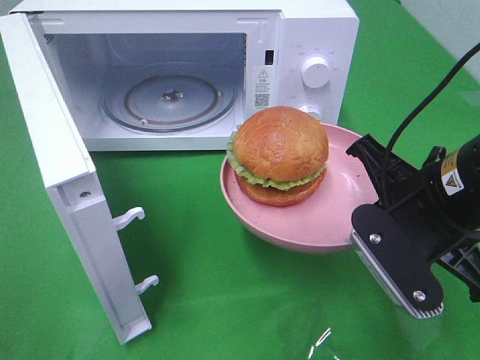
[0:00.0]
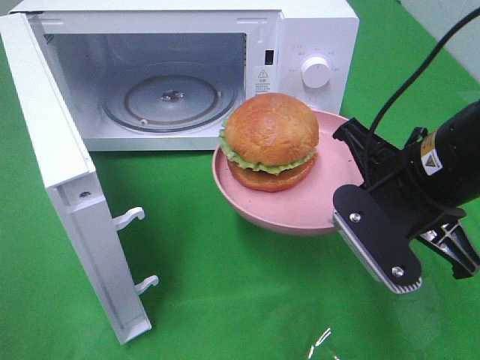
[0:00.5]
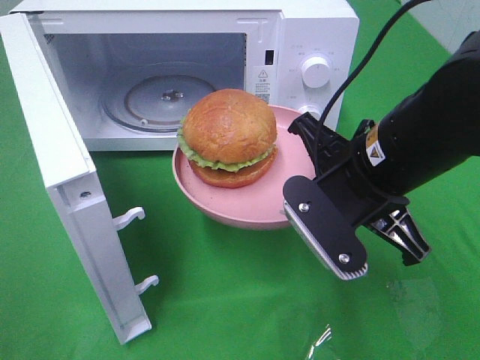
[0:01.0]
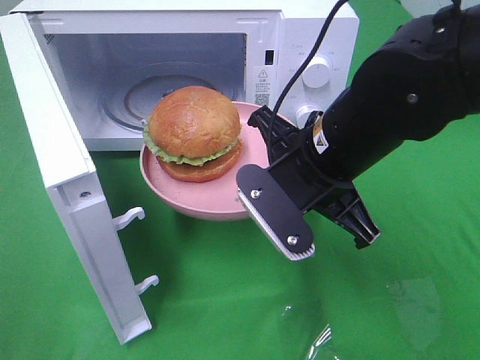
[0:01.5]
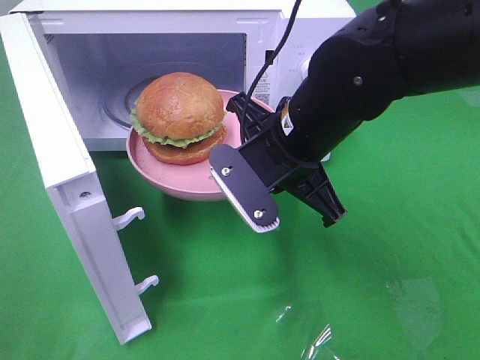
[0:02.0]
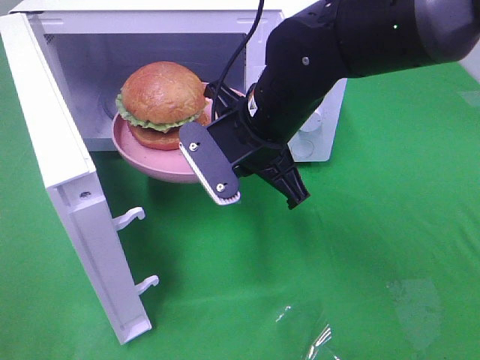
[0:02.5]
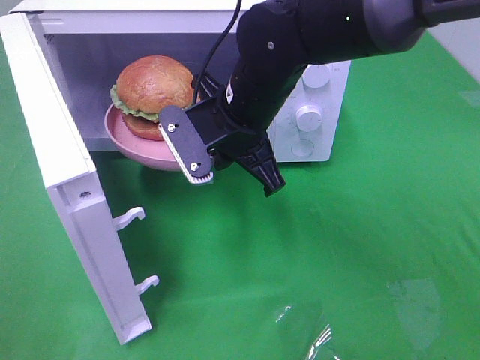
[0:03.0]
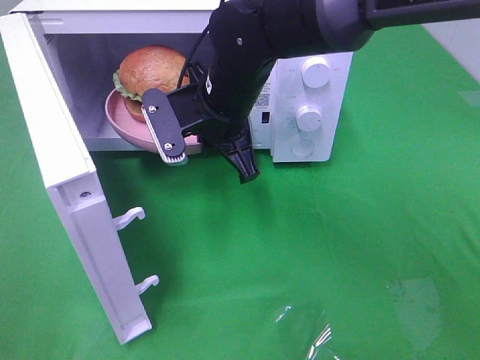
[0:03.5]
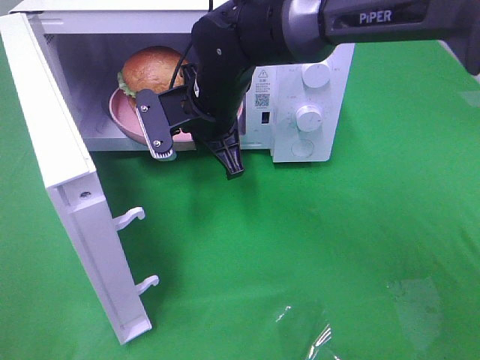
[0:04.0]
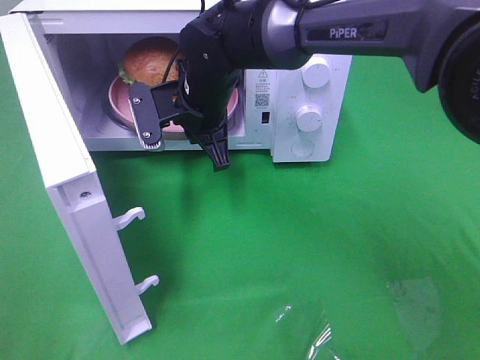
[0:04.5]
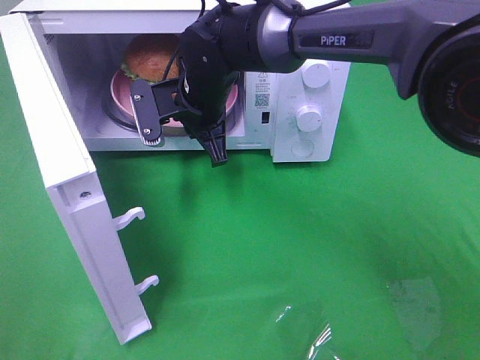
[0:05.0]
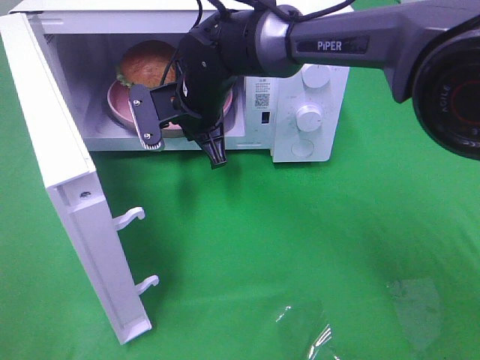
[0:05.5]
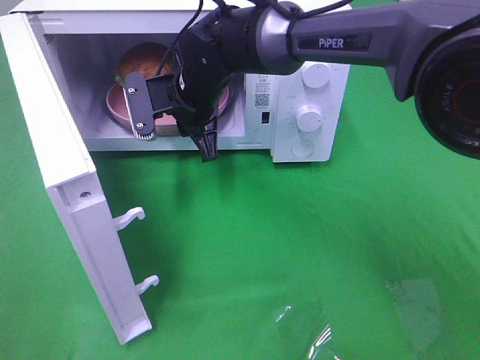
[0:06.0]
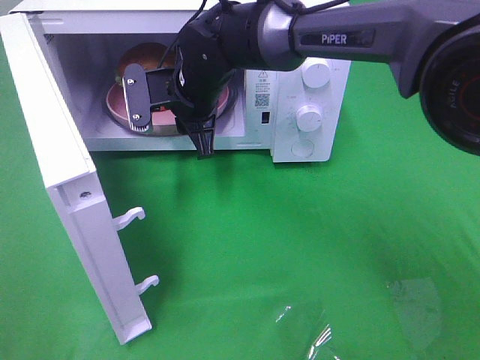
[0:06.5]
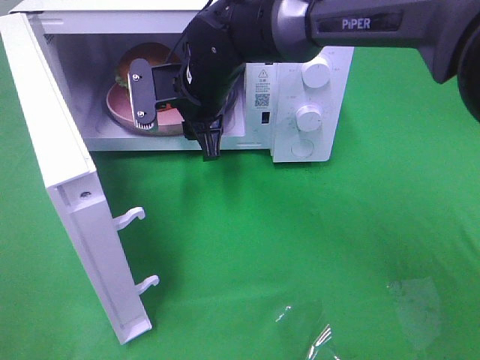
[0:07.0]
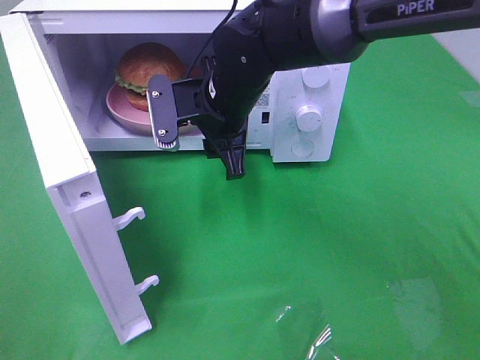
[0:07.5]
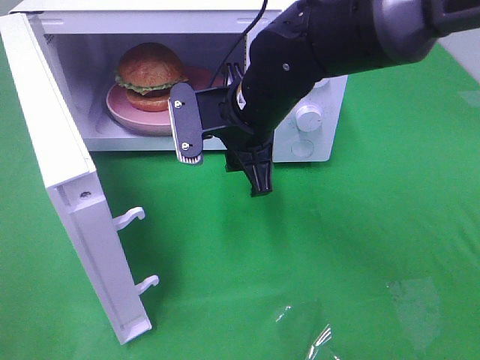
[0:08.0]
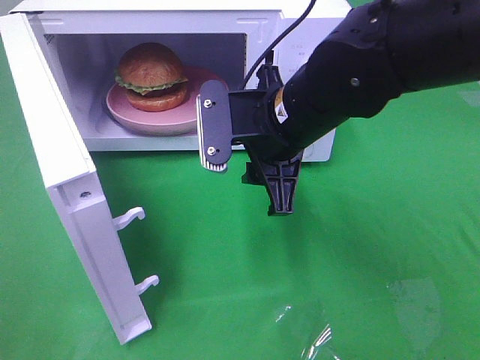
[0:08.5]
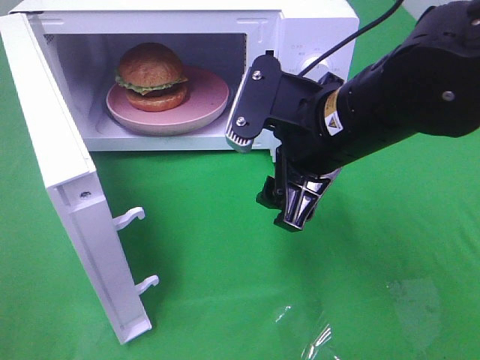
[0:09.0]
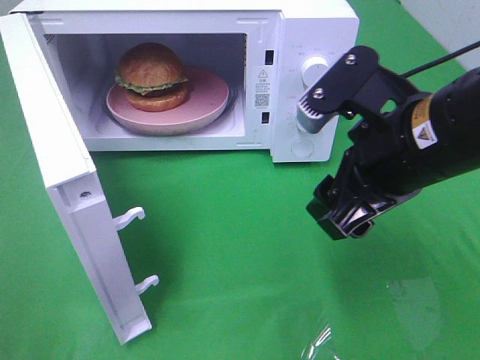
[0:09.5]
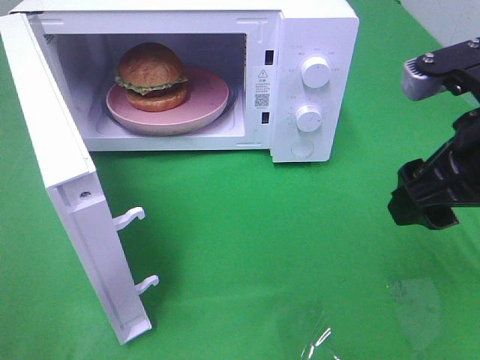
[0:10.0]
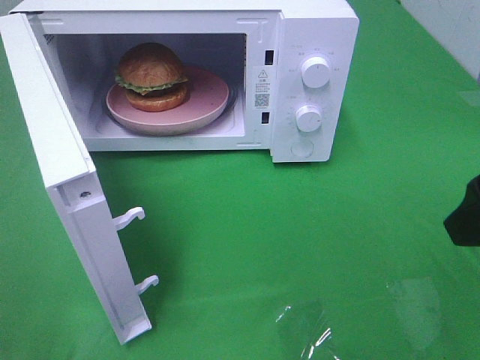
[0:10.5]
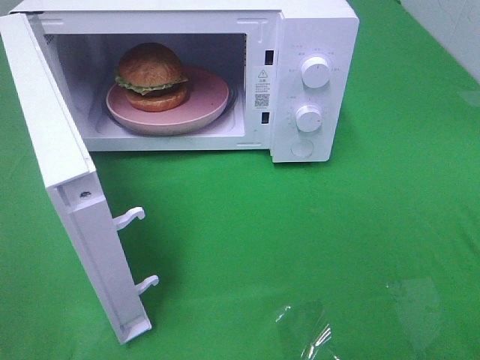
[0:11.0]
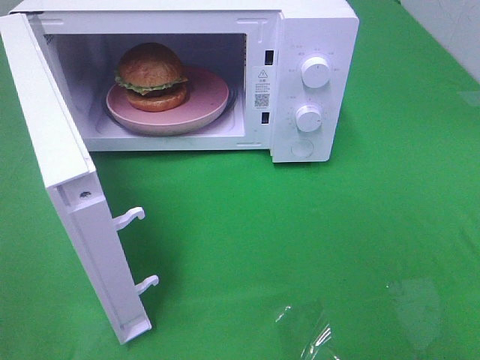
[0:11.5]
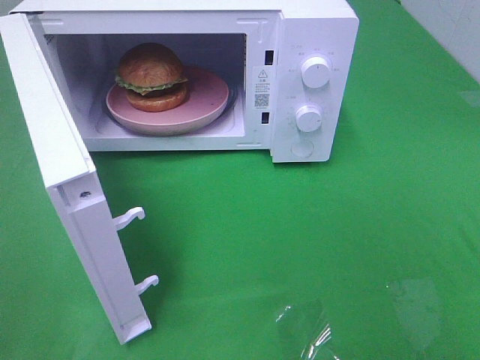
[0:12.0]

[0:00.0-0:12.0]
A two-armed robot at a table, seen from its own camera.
Task of the whole recording: Heat the burger.
Step, 0.0 to 7.0 s: Right hand: place the plate in the microwave.
0.0 to 2.0 s: The right gripper heads to the left and forward, covering about 15 cm.
2.0 to 4.0 s: The right gripper goes approximately 15 cm forward and to the left.
4.0 to 6.0 s: The right gripper opens.
6.0 to 8.0 s: The right gripper moves backward and to the right, approximately 10 cm.
8.0 to 10.0 s: The right gripper heads to the right, backward and upward, covering about 25 cm.
10.0 to 12.0 s: The right gripper shifts roughly 20 cm backward and to the right.

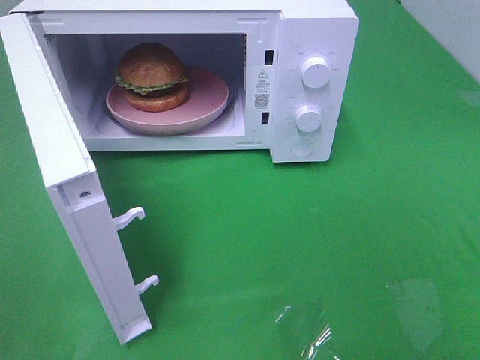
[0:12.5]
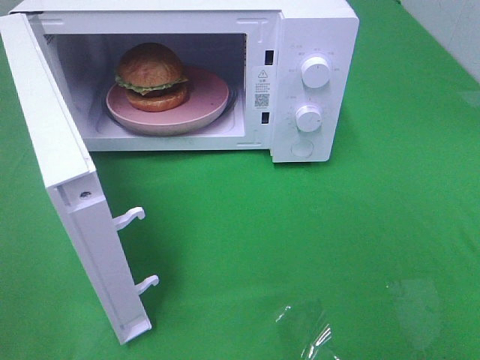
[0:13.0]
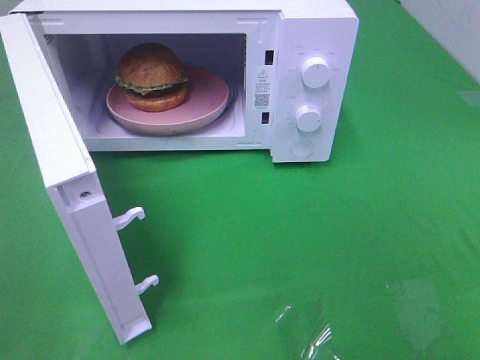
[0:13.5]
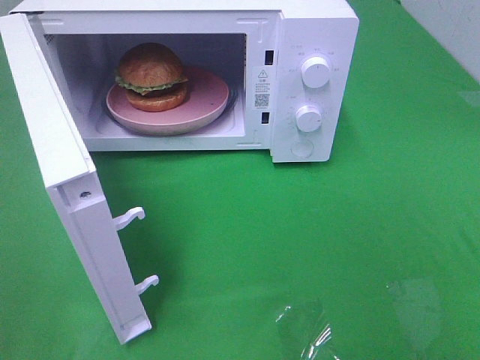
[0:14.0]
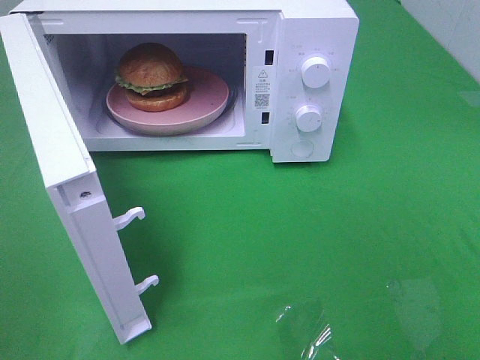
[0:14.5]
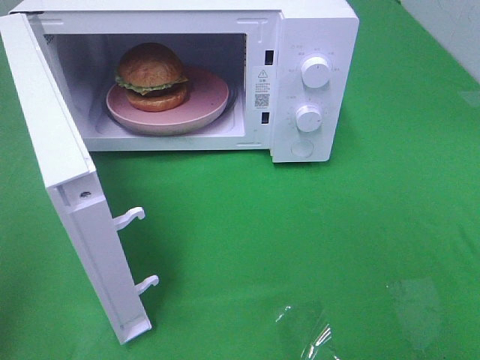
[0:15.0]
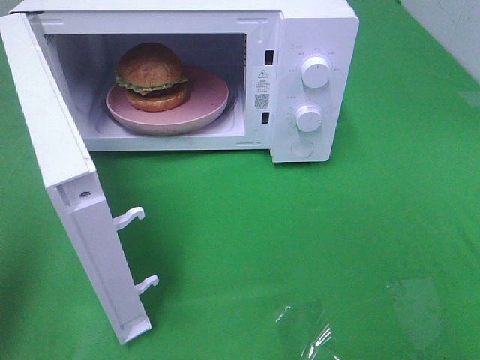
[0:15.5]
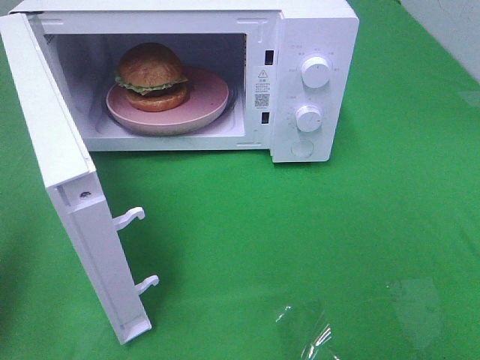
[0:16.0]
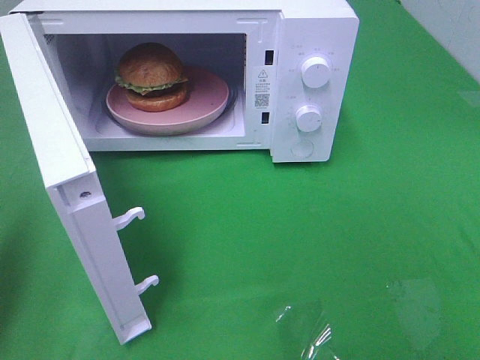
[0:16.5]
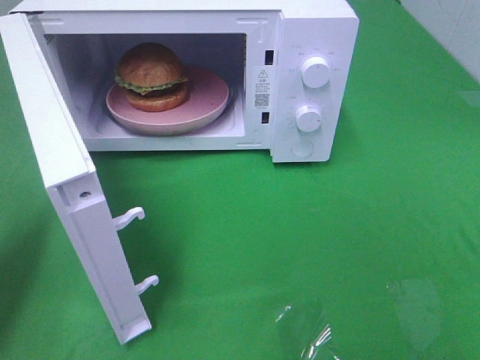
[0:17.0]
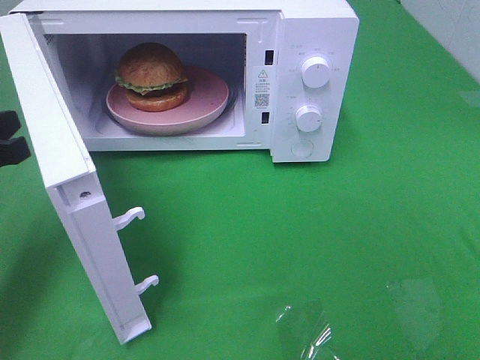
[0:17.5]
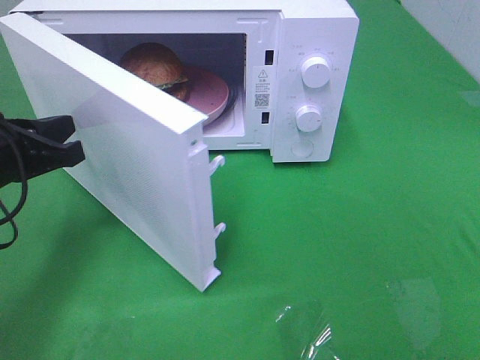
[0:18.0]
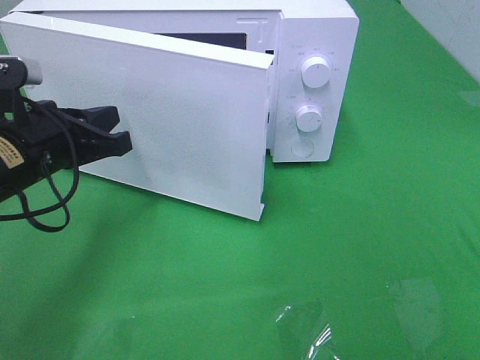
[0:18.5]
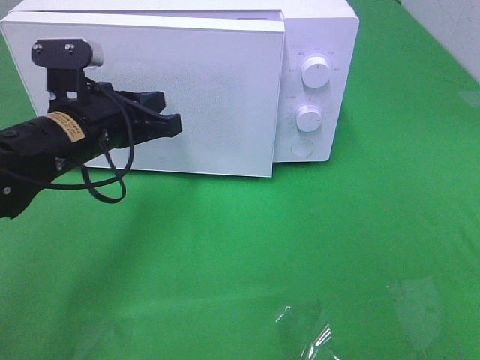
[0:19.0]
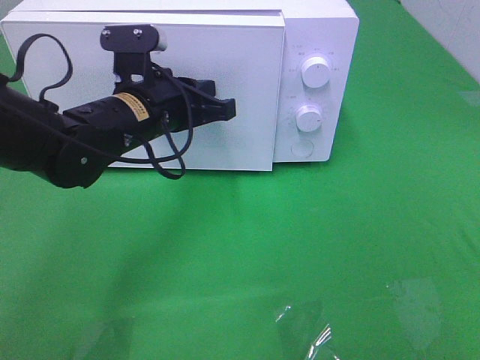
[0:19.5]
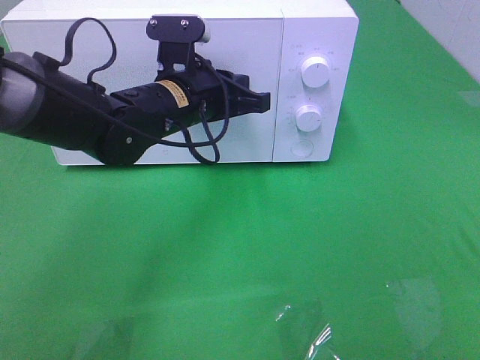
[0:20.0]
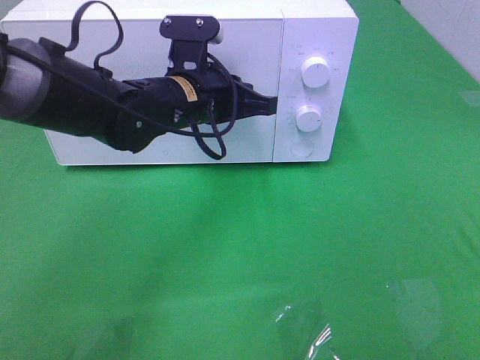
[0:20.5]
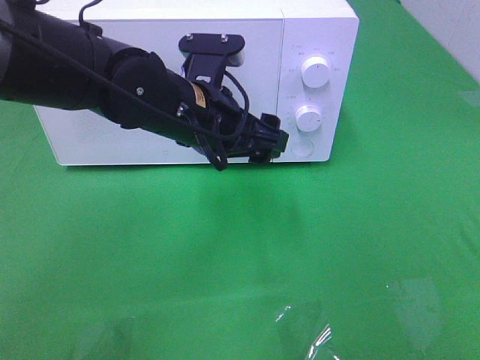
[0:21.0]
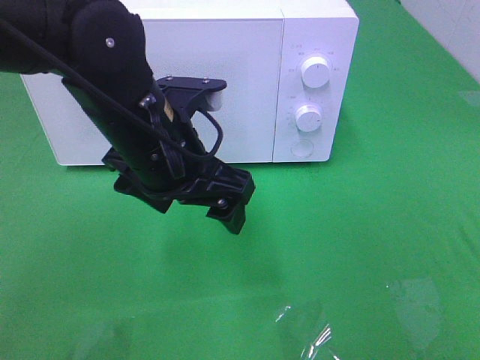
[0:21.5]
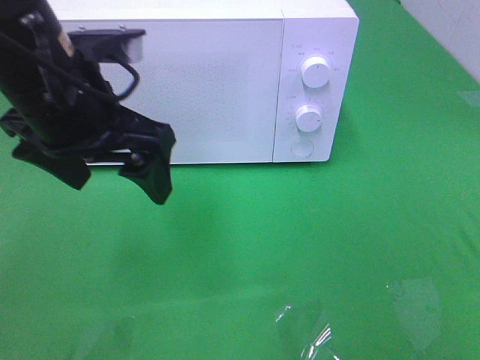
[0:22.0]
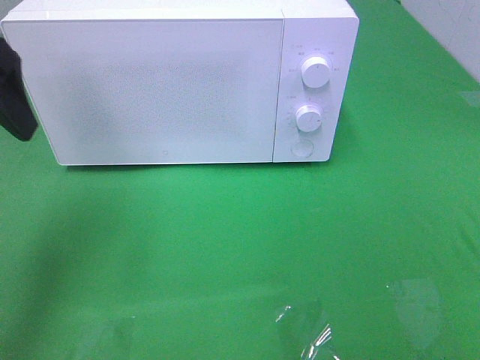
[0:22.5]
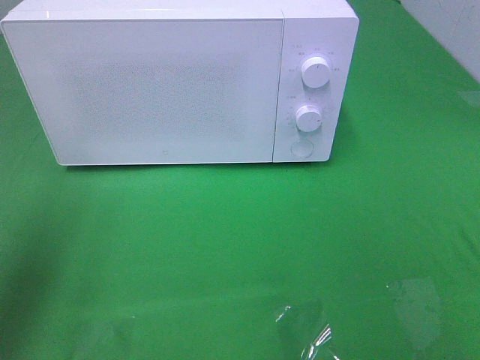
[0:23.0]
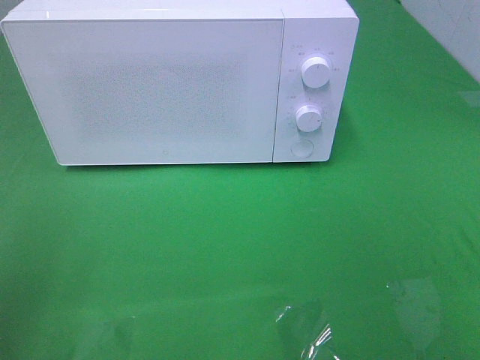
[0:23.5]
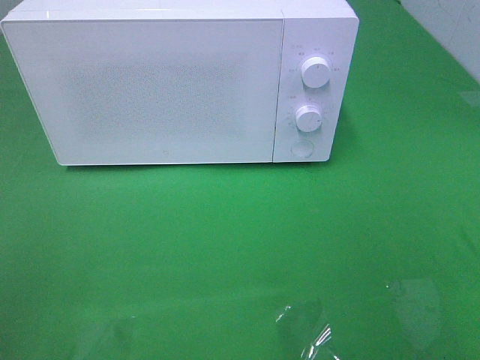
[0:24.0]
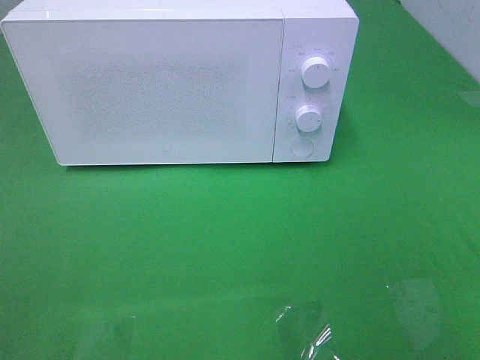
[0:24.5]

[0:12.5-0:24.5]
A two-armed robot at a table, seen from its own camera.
Task of the whole recording: Heat the burger.
Step, 12.5 to 20.5 s: Left hand: close the microwave door.
14.5 to 16.5 s: The left gripper travels forward and downward by approximately 15 cm, and closes.
16.5 to 18.5 s: The left gripper goes roughly 20 cm to the right, forward and downward.
18.5 to 20.5 s: The left gripper travels to the right and forward by about 15 cm.
20.5 to 22.5 s: The left gripper shifts about 25 cm to the left, upward and backward, and opens up.
22.5 to 24.5 s: The left gripper travels backward by approximately 25 cm.

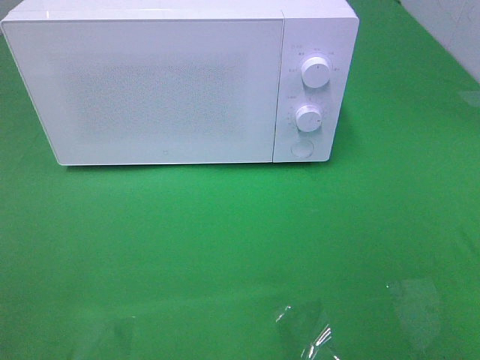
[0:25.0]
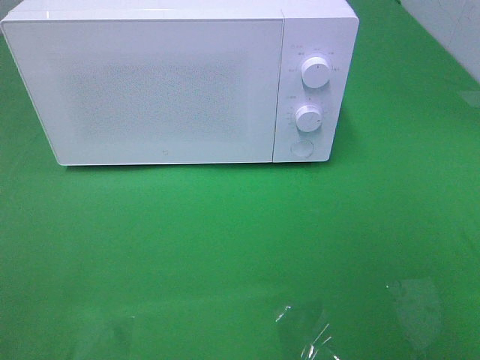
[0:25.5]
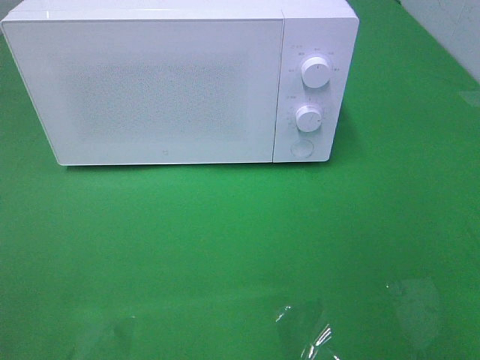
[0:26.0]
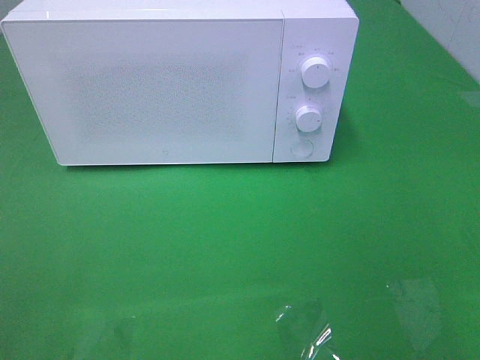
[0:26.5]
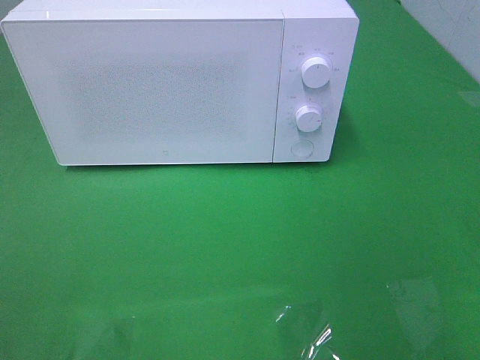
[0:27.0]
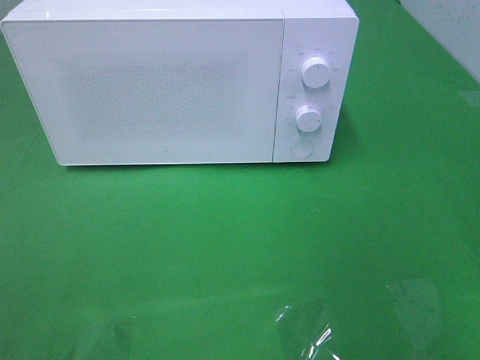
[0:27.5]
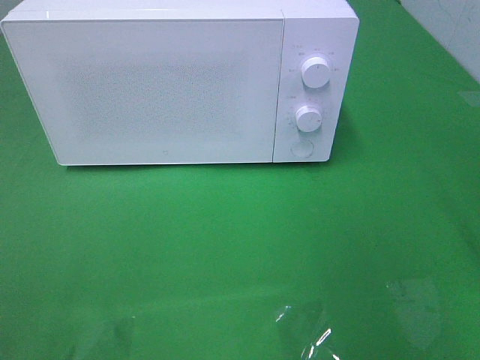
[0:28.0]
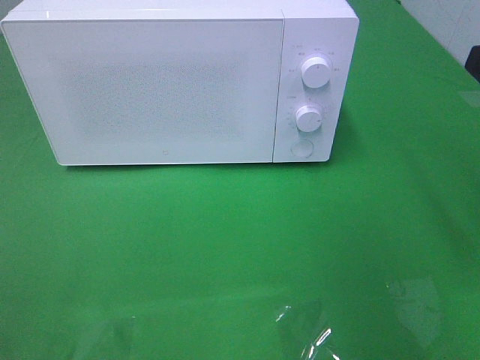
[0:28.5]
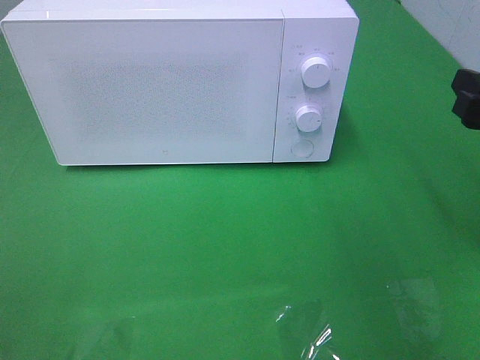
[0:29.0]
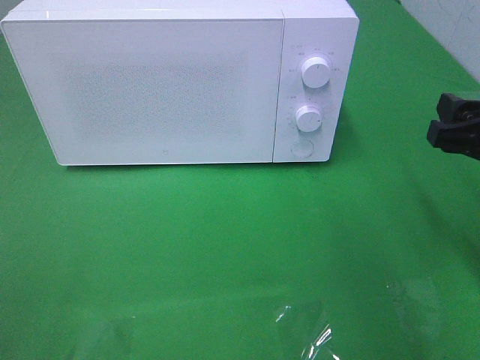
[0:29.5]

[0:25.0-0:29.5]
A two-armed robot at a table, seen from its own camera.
Task of the whole recording: Heat the burger.
27.0 to 29.5 s: The right gripper heads forward and downward, covering approximately 20 cm.
